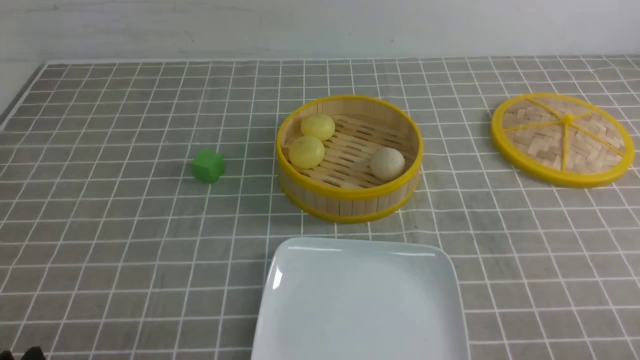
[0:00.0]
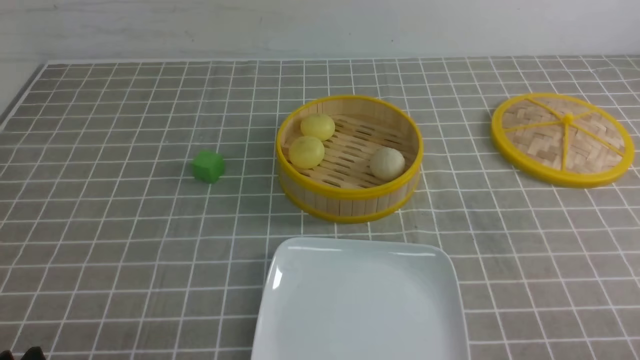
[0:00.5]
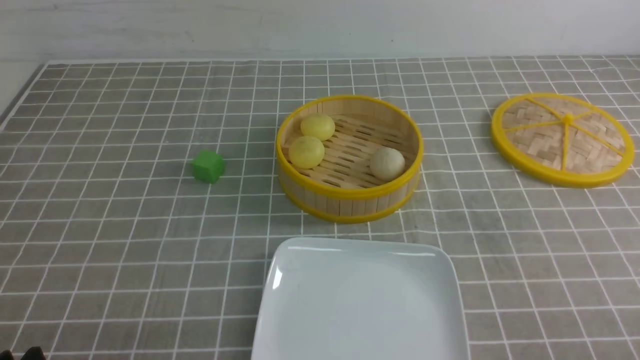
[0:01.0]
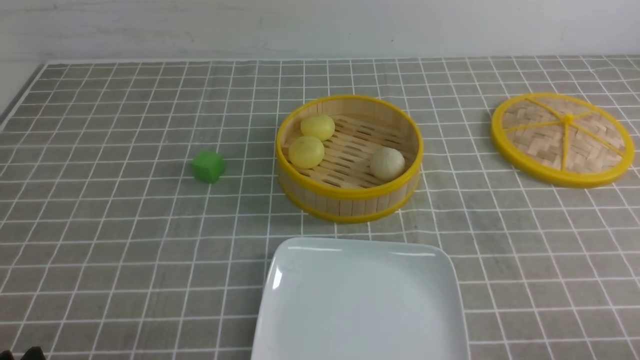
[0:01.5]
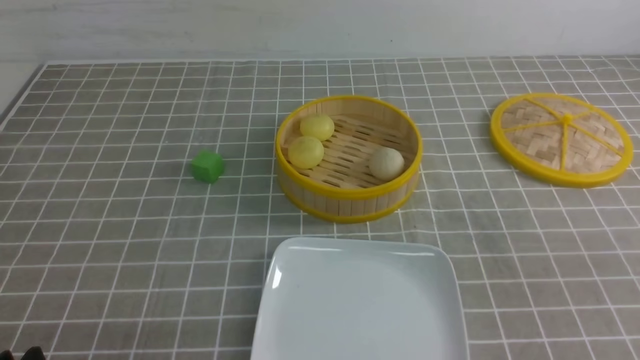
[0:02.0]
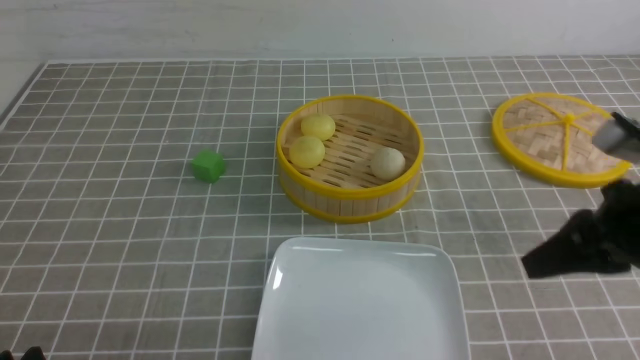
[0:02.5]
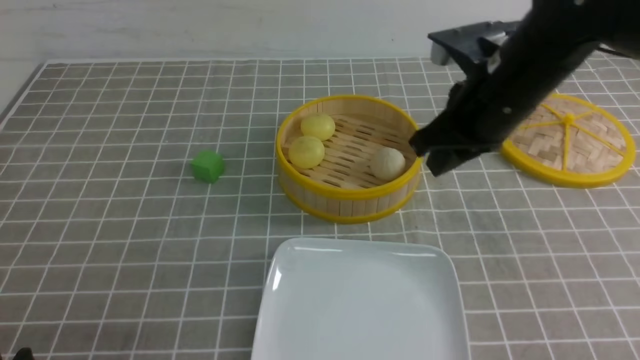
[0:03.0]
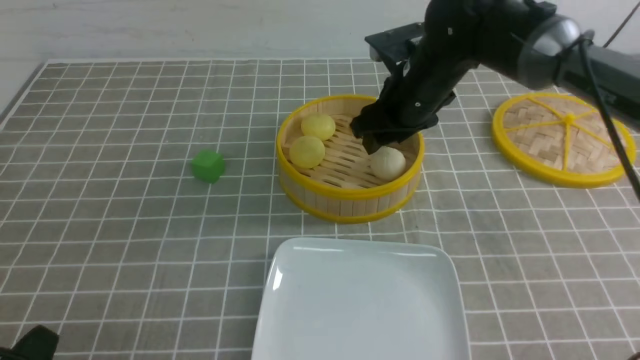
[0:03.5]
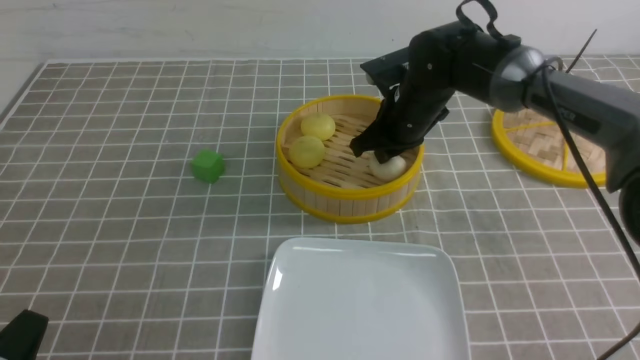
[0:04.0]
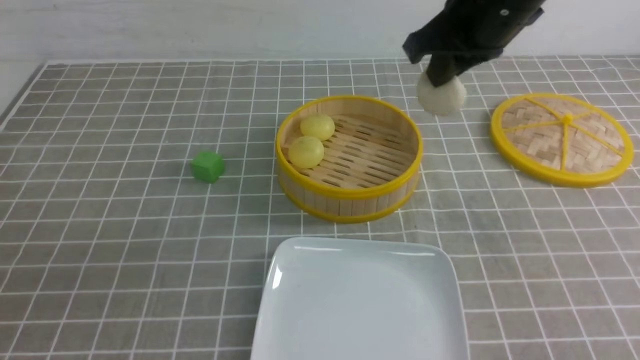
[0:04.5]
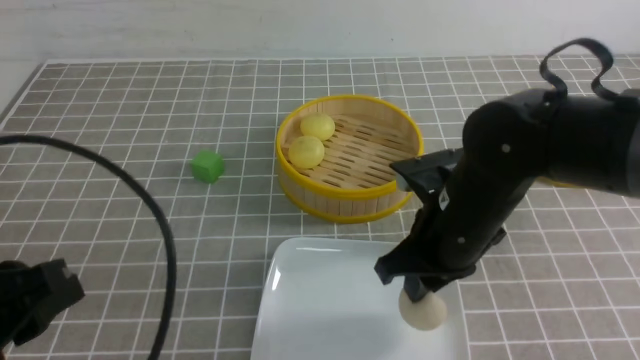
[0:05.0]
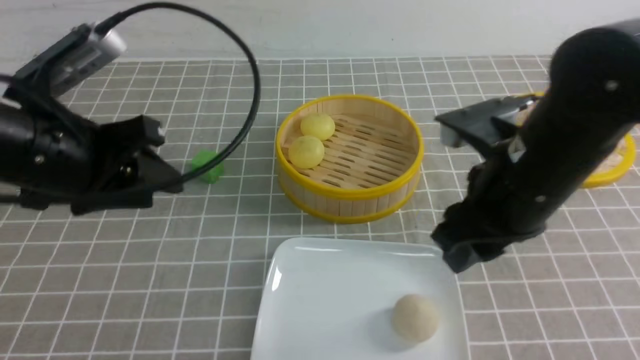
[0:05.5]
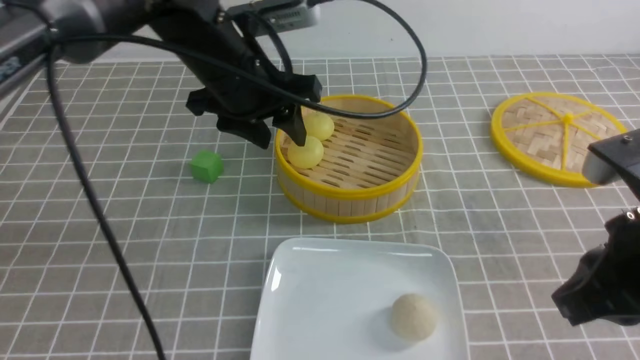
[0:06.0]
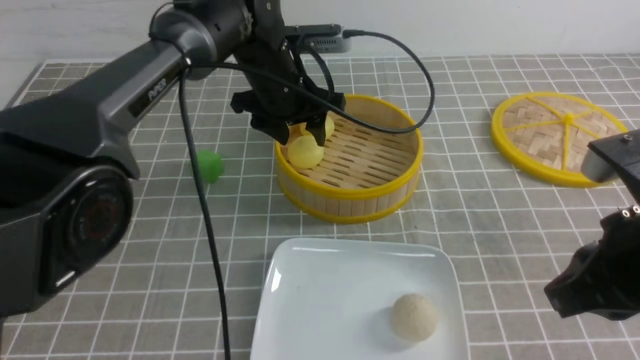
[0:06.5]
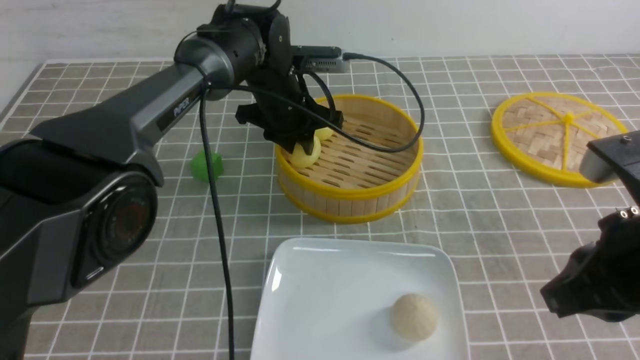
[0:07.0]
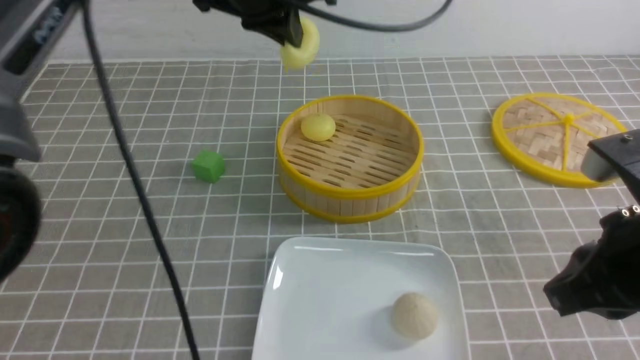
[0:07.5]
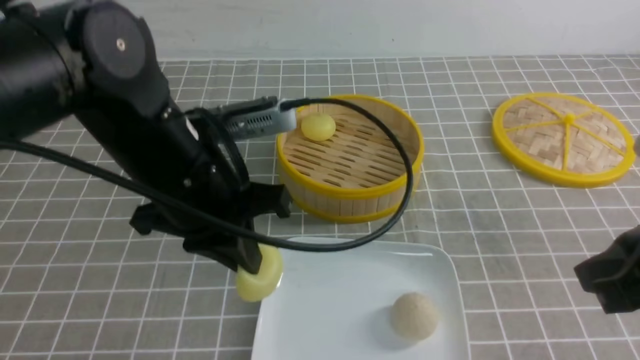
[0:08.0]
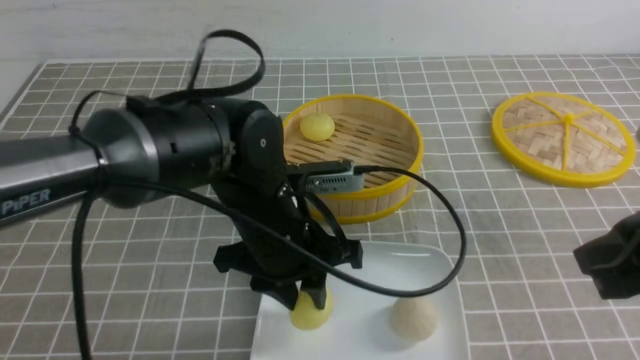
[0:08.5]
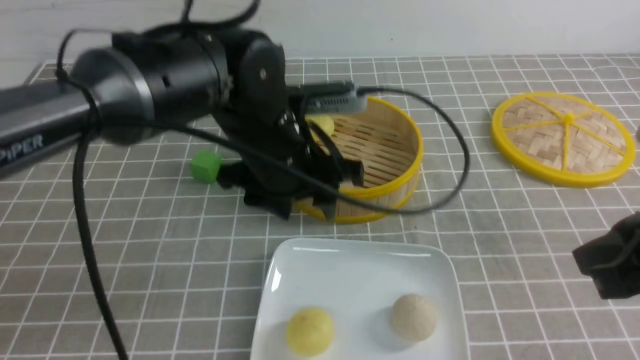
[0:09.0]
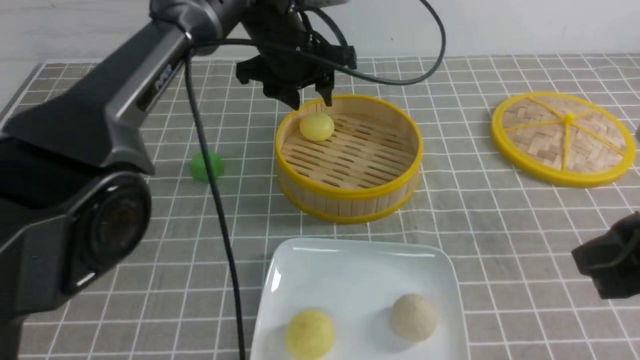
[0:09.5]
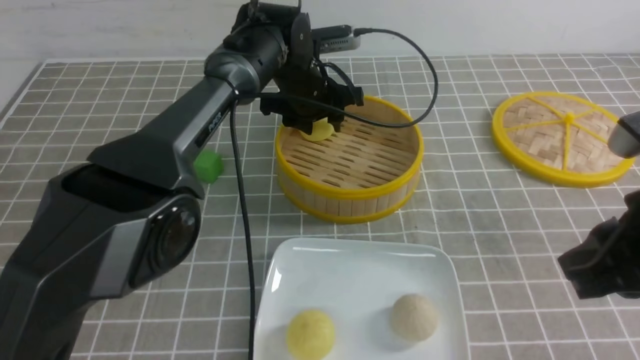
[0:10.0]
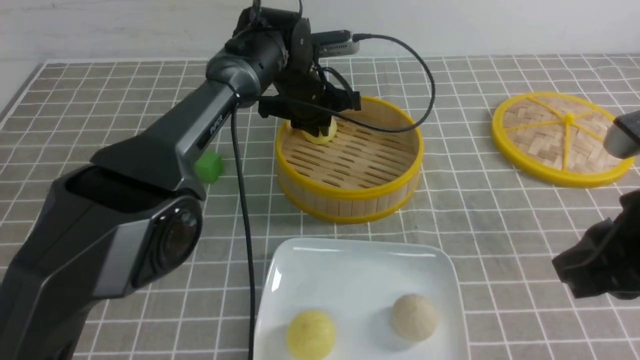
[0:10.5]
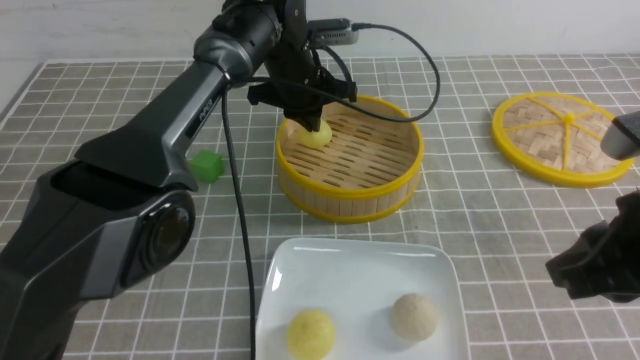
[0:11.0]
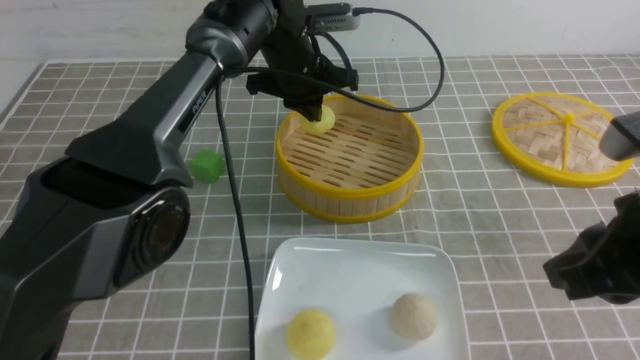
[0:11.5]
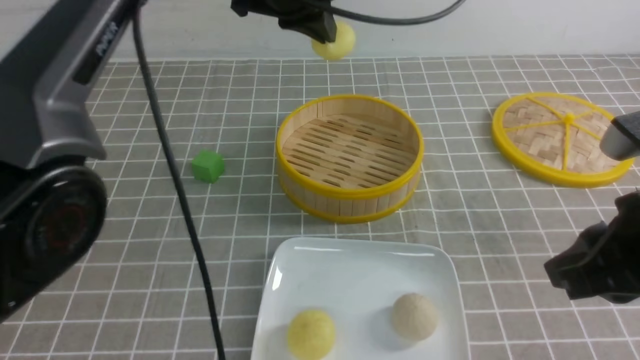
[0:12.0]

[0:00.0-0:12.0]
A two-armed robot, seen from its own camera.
Step, 0:00.0 to 0:04.0: use the right arm to grab the steamed stuffed bun that is closest to it.
Step, 0:04.5 to 0:05.0: use the right arm to put the steamed stuffed bun into the plate.
Step, 0:05.5 to 0:07.0: use the left arm to grab the steamed stuffed bun that is closest to it.
Step, 0:07.5 to 0:08.5: use the left arm to put the steamed stuffed bun into the plate.
Step, 0:09.0 to 0:11.0: use the left arm to grab the steamed stuffed bun that is closest to it.
0:02.0 to 0:04.0: The right gripper is displaced forward and to the left by about 40 cm, and opens, then closes once more.
0:04.0 to 0:06.0: The left gripper heads forward and to the right, covering roughly 35 cm, and opens. The right gripper heads backward, covering about 30 cm, and closes up.
0:06.0 to 0:08.0: The left gripper is displaced backward by approximately 10 cm, and closes up.
0:08.0 to 0:10.0: The left gripper moves forward, roughly 25 cm, and opens.
0:10.0 to 0:12.0: The left gripper goes approximately 20 cm upward and backward, and closes its fingers.

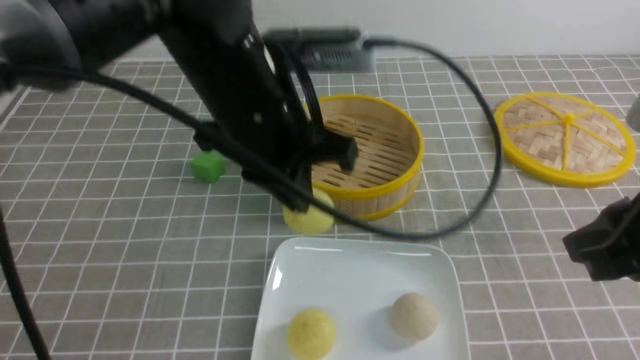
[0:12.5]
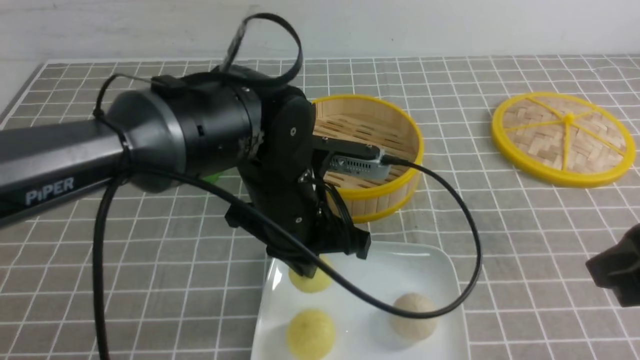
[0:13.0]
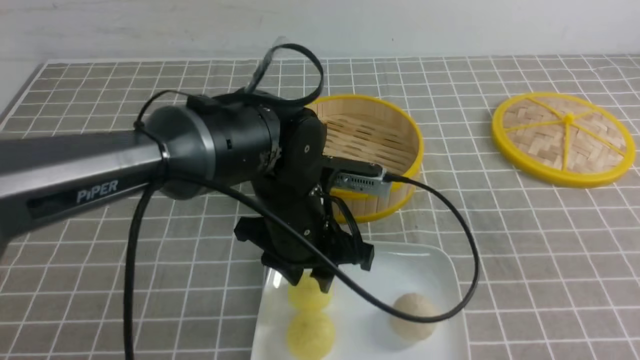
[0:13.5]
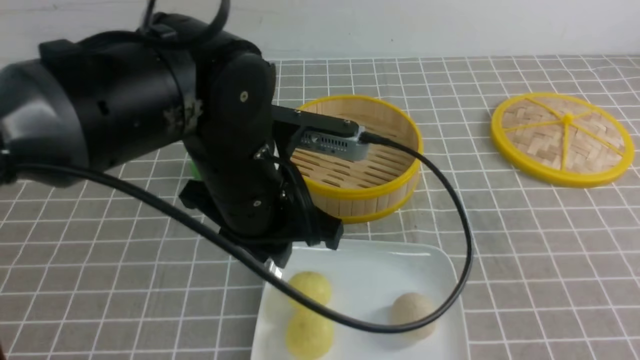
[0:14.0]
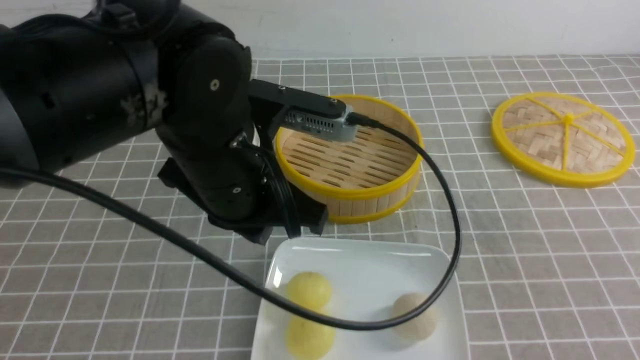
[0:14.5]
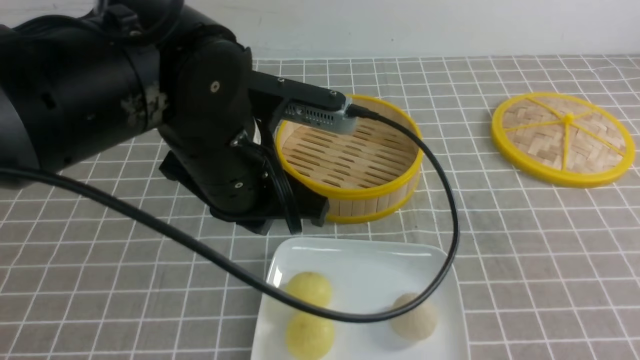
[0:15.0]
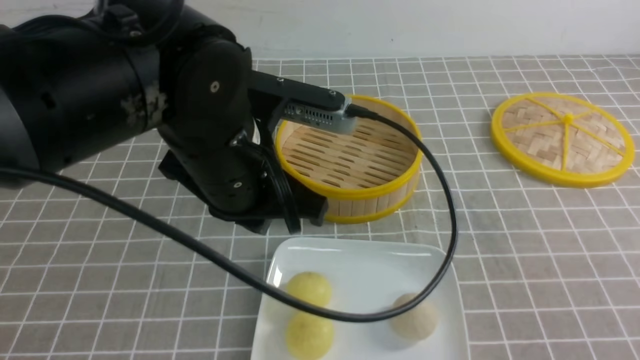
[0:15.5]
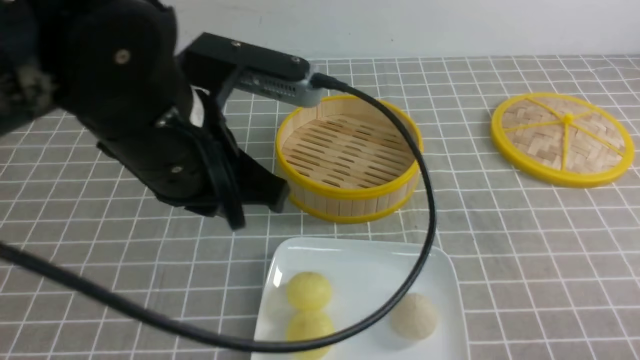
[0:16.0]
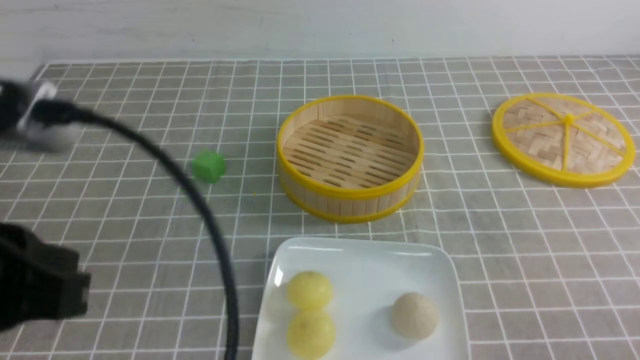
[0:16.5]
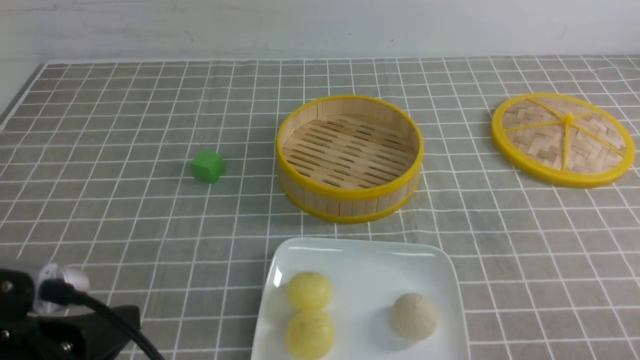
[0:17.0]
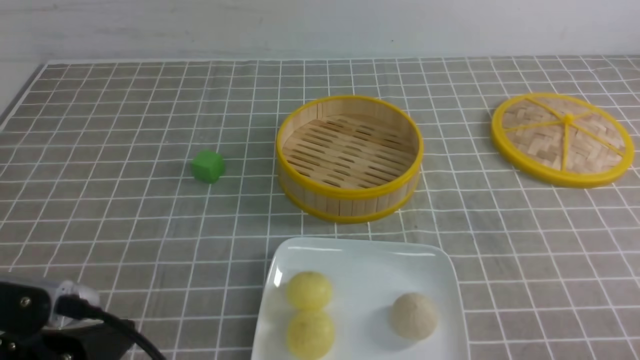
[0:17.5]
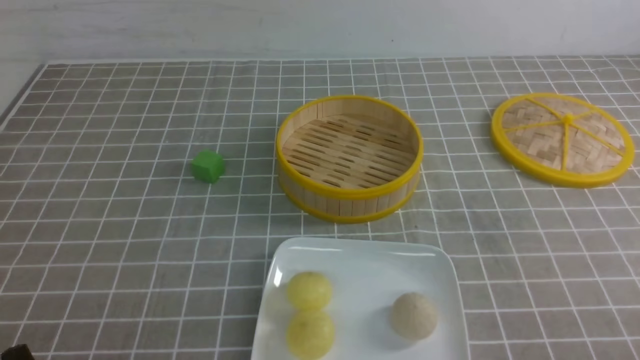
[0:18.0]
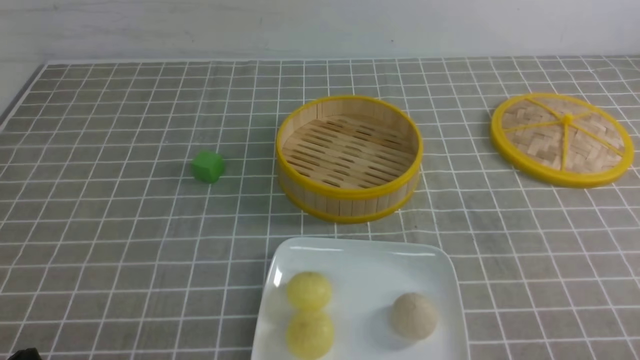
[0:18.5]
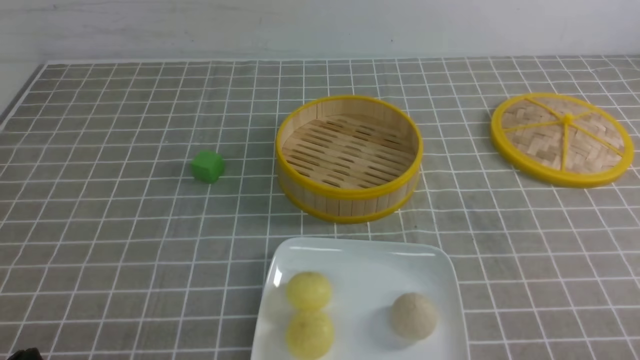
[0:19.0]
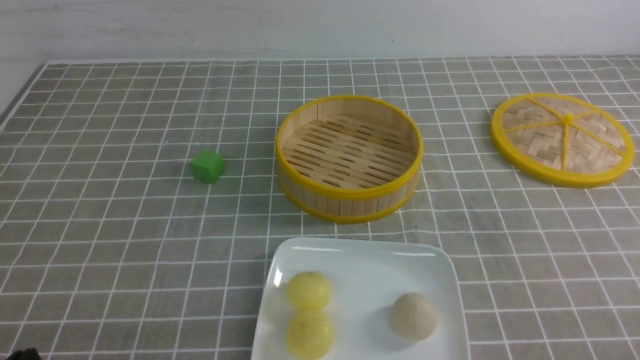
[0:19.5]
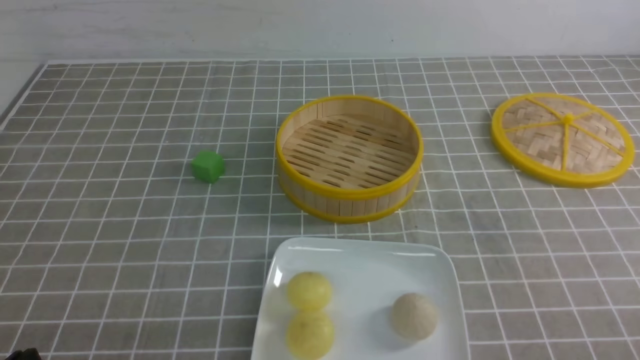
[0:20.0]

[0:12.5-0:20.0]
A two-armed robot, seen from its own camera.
0:12.5 to 0:14.5: The right gripper is displaced backward and to the right by approximately 15 cm, and closes up. Meanwhile the left gripper goes downward and returns, about 10 cm each way, and opens and closes again.
0:14.5 to 0:16.5: The left gripper moves backward and to the left, about 20 cm. The right gripper heads downward, covering approximately 15 cm.
0:16.5 to 0:18.0: The left gripper goes roughly 20 cm downward.
